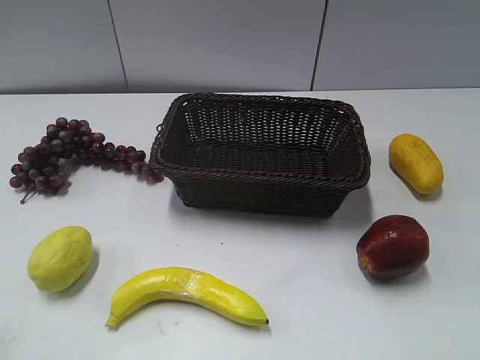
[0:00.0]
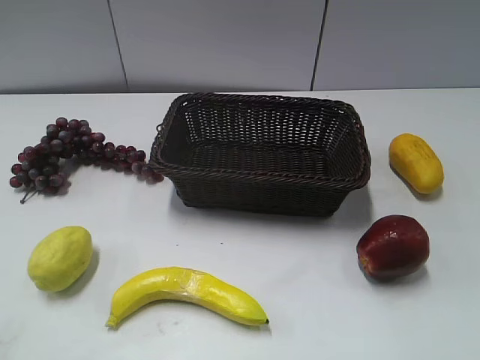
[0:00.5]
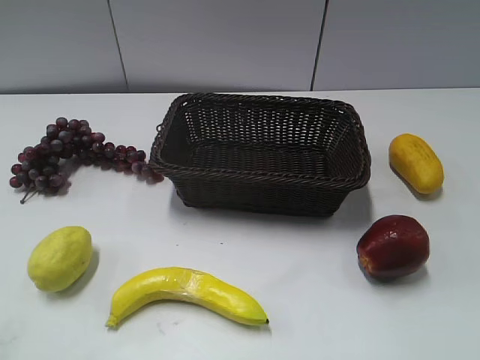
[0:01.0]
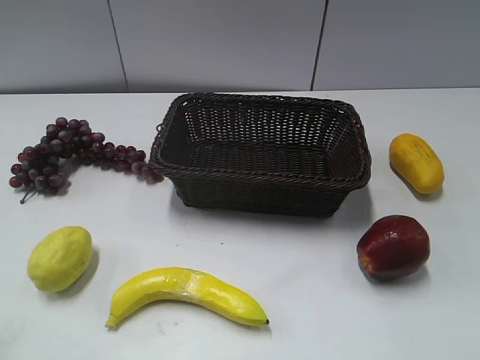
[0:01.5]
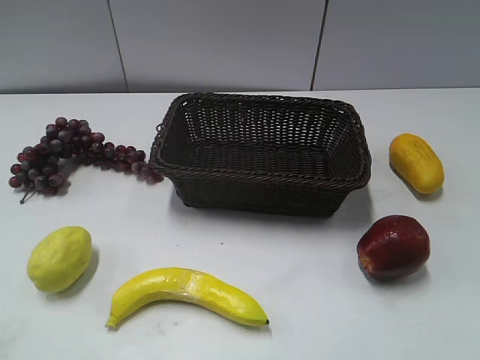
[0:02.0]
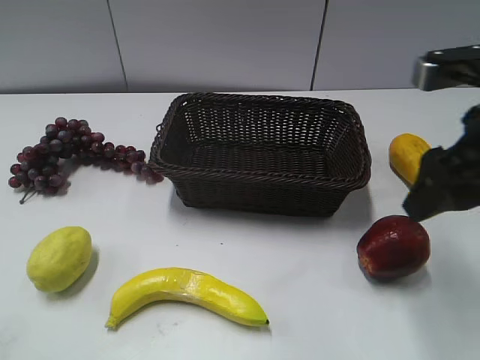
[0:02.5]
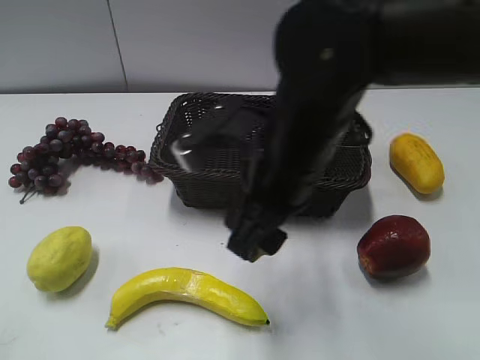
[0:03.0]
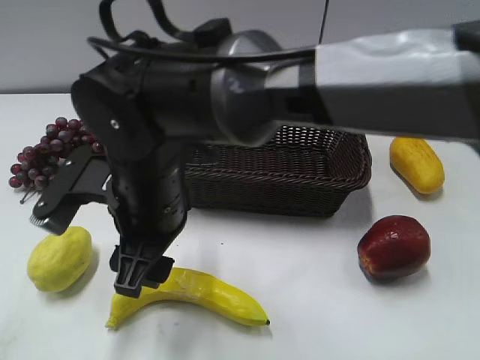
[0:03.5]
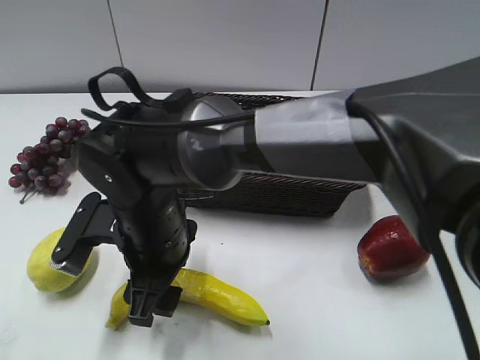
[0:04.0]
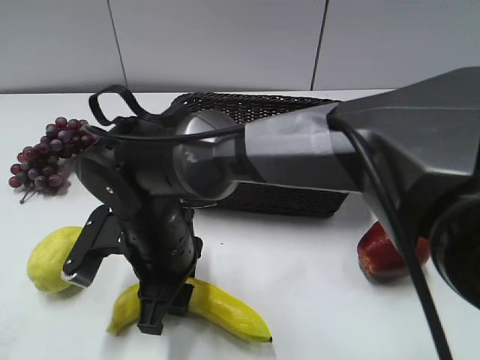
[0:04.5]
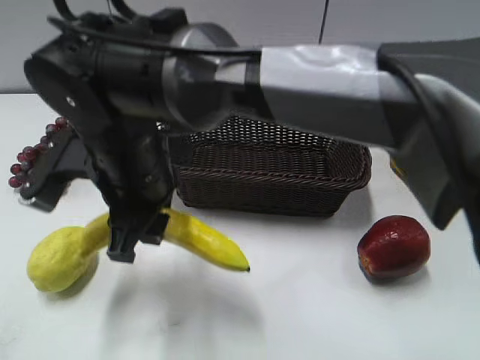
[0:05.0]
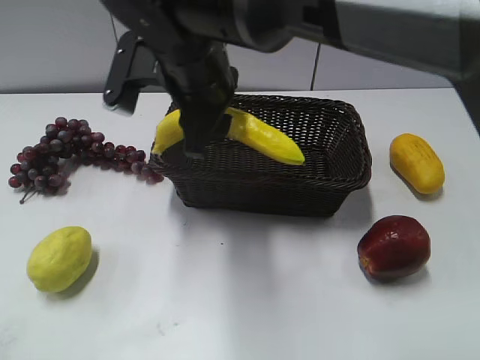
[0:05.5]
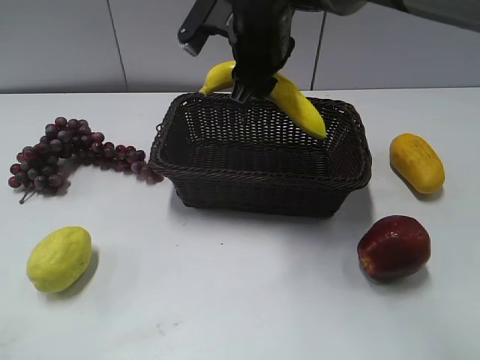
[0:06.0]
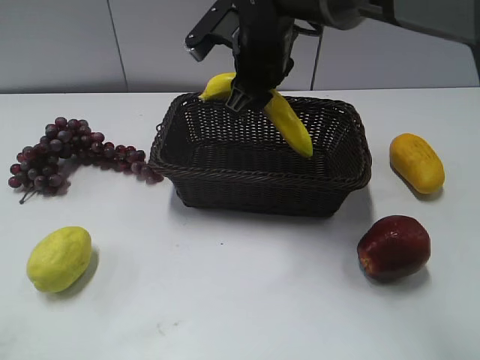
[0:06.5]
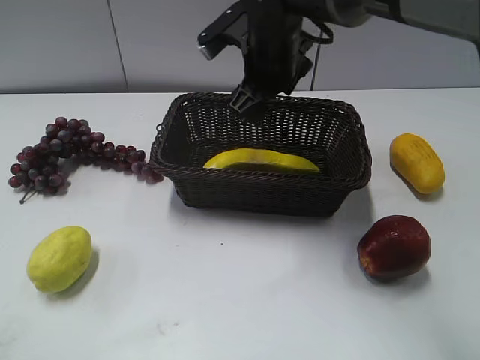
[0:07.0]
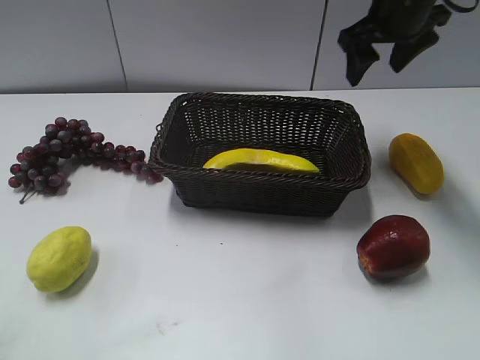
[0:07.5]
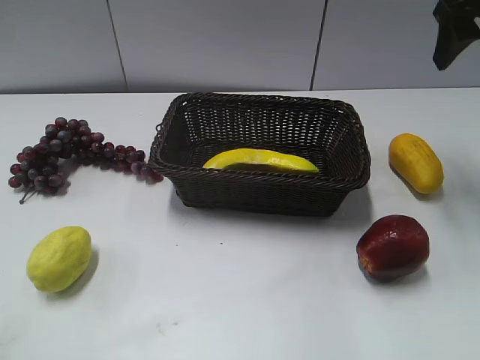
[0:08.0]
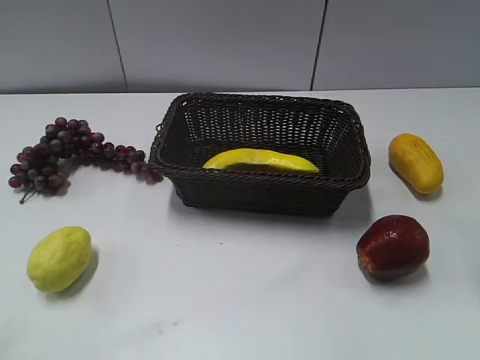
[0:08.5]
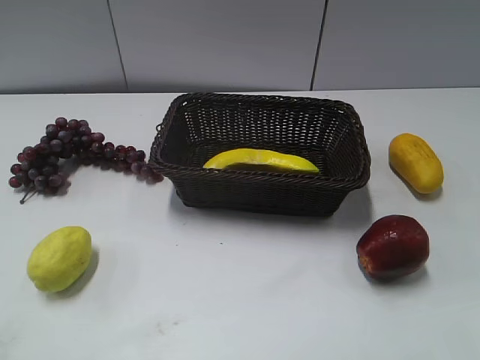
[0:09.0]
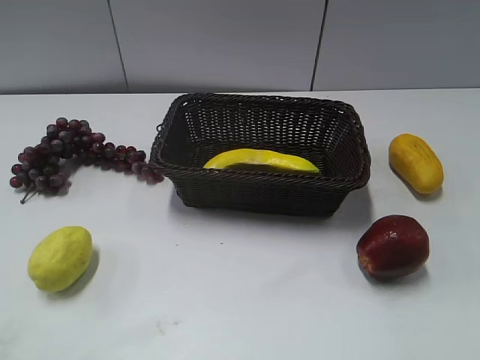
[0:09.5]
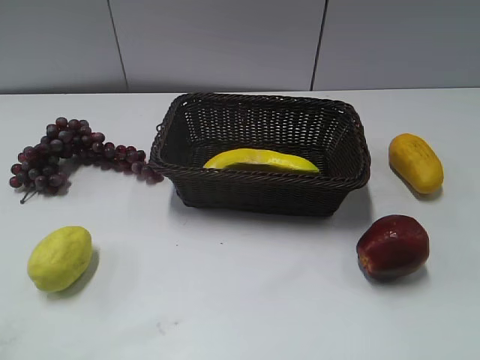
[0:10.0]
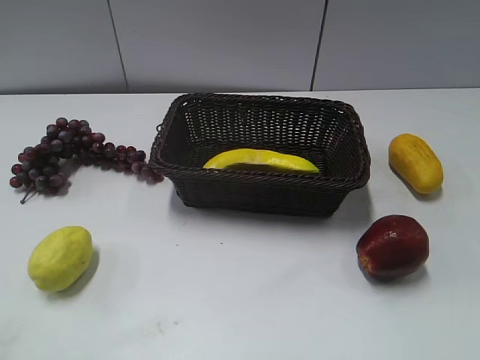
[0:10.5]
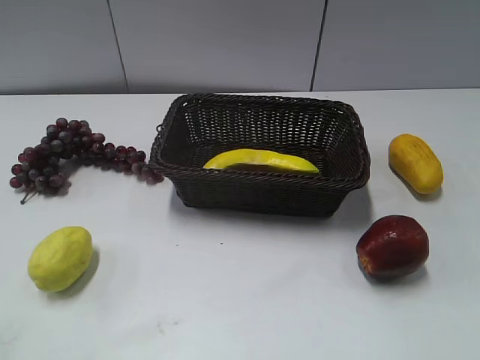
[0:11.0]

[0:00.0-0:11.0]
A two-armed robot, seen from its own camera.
Step, 0:02.0 to 0:04.5: Grasp the banana with right gripper.
Step, 0:05.0 to 0:06.5: Place the banana in the basket with right gripper.
0:02.0 to 0:03.5: The right gripper goes approximately 35 cm to the left.
0:03.5 to 0:05.5: The right gripper goes approximately 10 cm forward and upward, and closes up.
0:05.5 to 0:07.5: The right gripper travels to the right and forward by some 25 cm, and opens its fingers.
0:07.5 to 0:09.0: The right gripper is displaced backward by approximately 30 cm.
